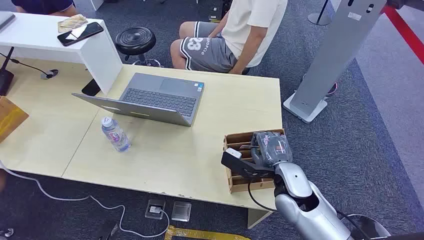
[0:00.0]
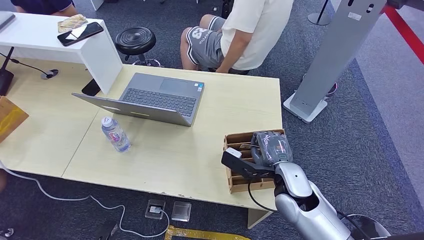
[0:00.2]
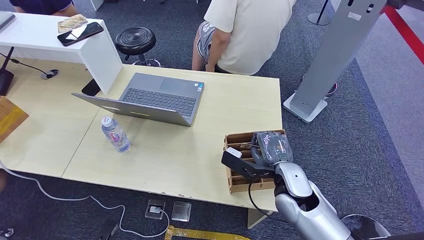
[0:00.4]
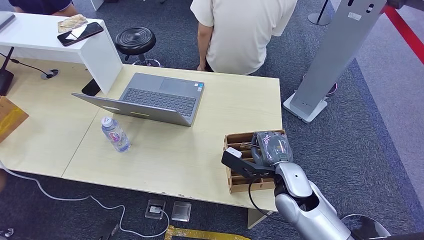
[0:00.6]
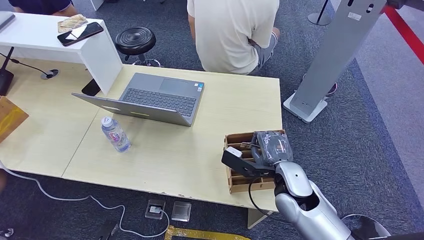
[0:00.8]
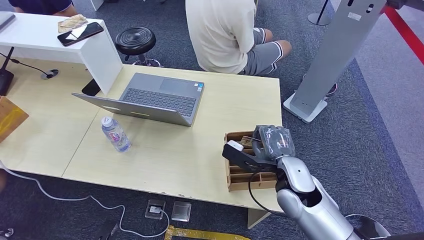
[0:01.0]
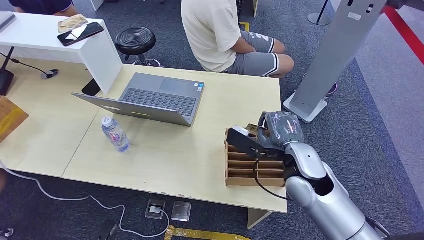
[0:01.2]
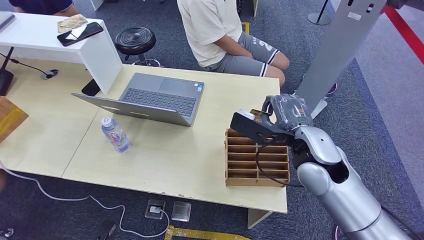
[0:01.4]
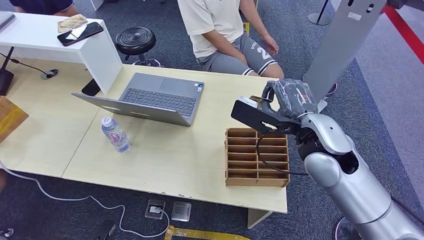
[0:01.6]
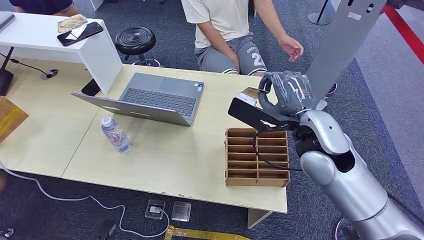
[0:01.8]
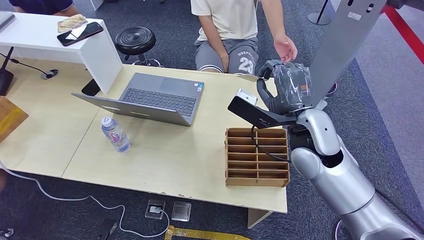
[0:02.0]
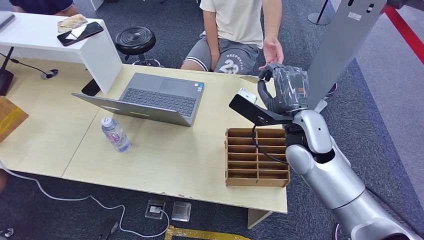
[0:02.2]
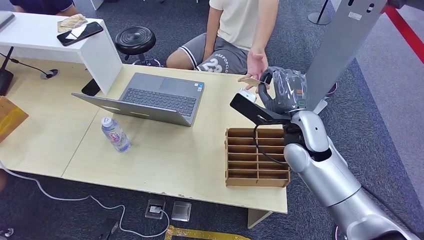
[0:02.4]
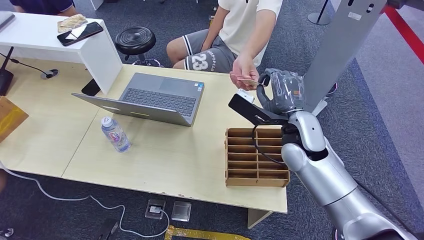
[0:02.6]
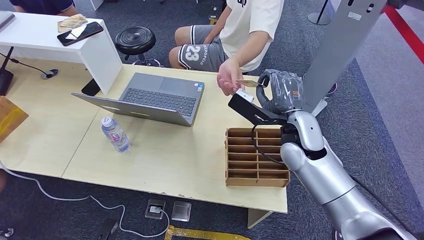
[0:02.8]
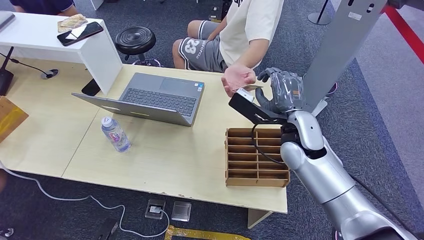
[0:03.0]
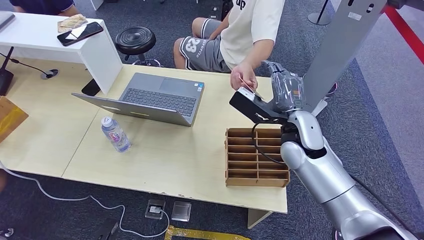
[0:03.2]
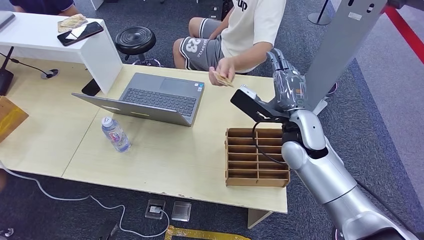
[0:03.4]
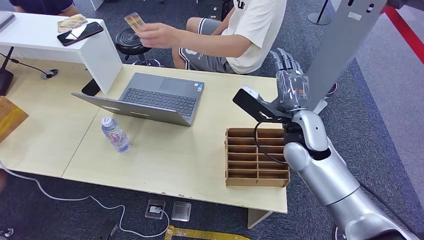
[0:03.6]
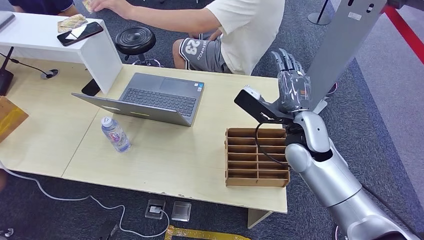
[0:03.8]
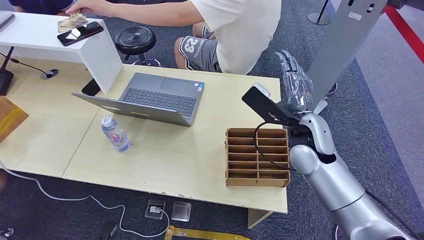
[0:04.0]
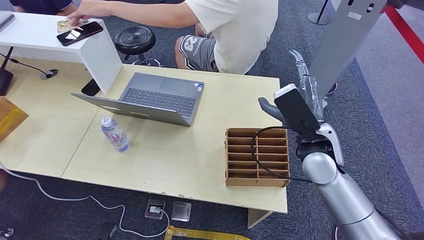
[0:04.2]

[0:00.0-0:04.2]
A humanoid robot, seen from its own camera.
Task of the whole recording: Pick up the card and hand it over to the target person.
Step, 0:00.0 to 0:01.6: Pick up the key card from the card box.
Step, 0:01.8 to 0:04.2: Hand the key card to the target.
0:01.4 to 0:02.8: The right hand is displaced forward and downward by some 10 cm.
0:02.8 to 0:04.2: The right hand shifts approximately 10 cm backward and to the right.
